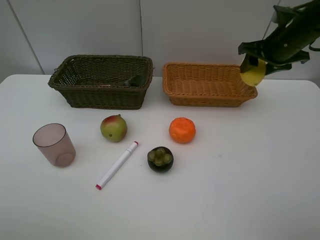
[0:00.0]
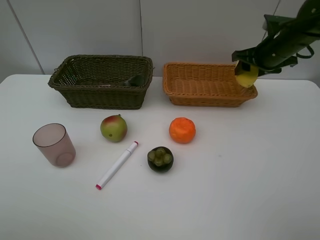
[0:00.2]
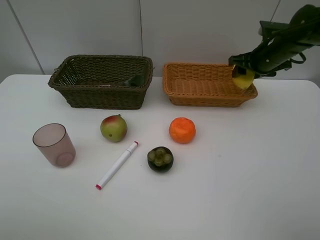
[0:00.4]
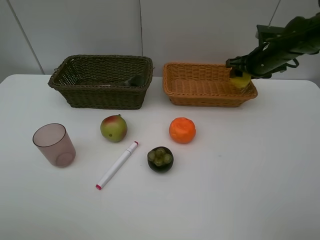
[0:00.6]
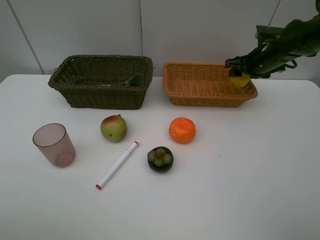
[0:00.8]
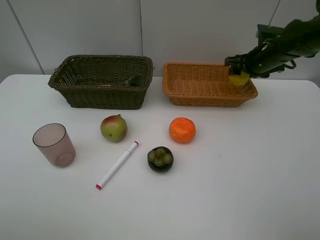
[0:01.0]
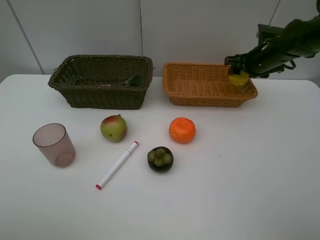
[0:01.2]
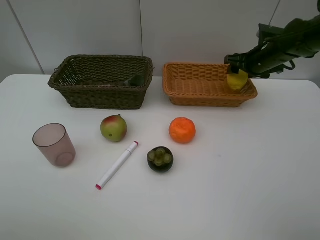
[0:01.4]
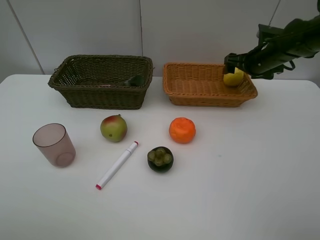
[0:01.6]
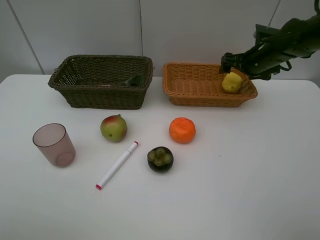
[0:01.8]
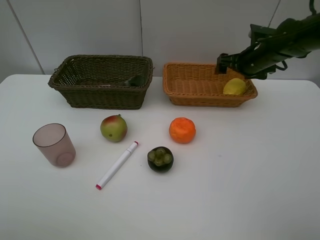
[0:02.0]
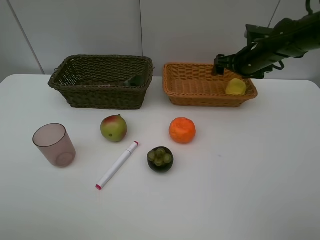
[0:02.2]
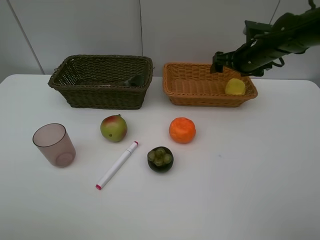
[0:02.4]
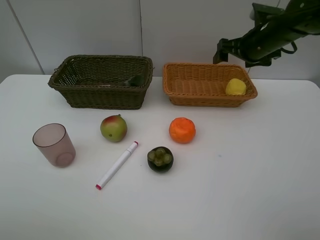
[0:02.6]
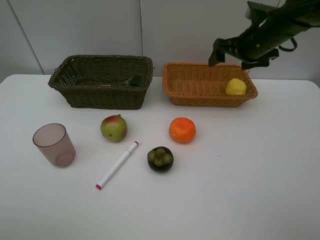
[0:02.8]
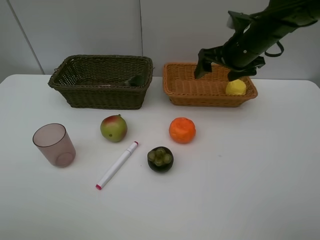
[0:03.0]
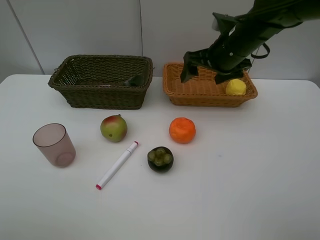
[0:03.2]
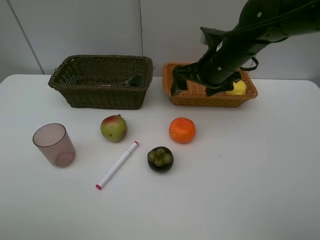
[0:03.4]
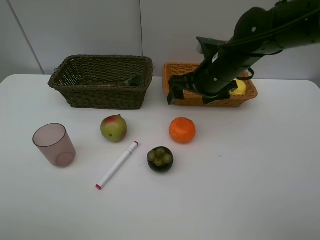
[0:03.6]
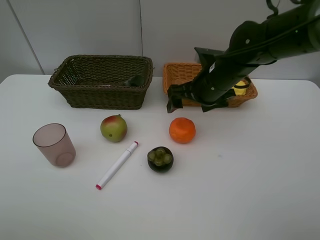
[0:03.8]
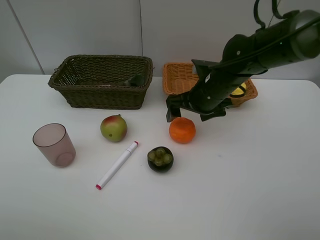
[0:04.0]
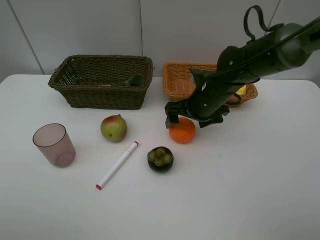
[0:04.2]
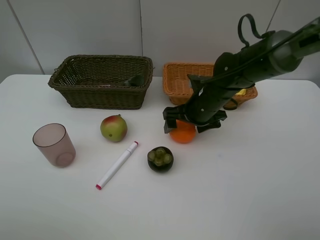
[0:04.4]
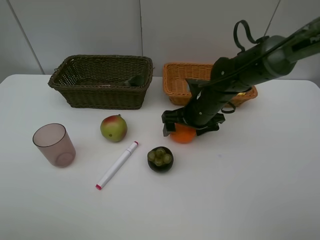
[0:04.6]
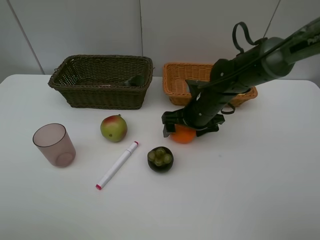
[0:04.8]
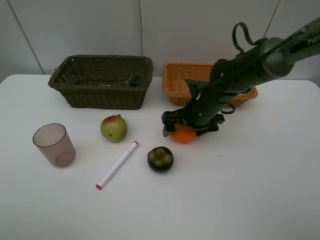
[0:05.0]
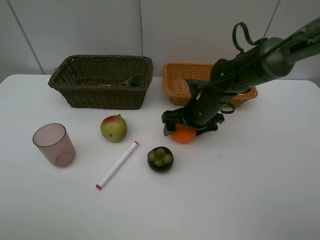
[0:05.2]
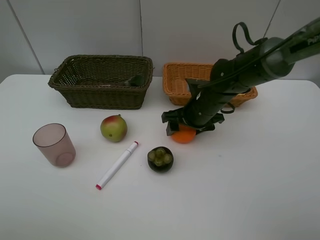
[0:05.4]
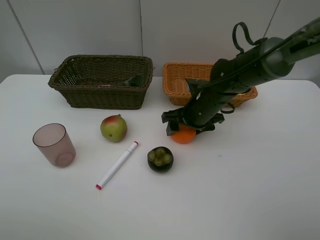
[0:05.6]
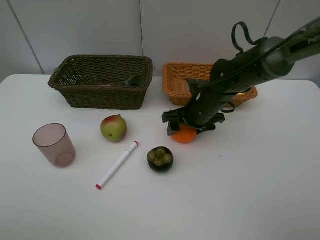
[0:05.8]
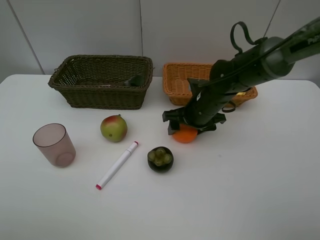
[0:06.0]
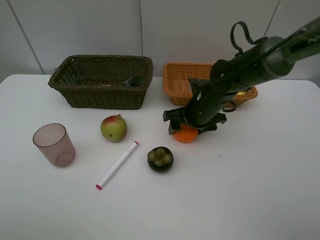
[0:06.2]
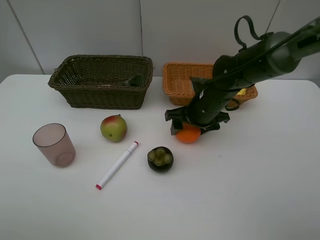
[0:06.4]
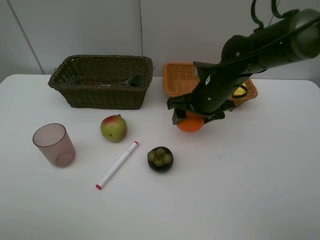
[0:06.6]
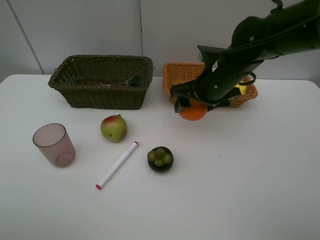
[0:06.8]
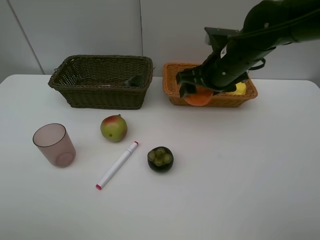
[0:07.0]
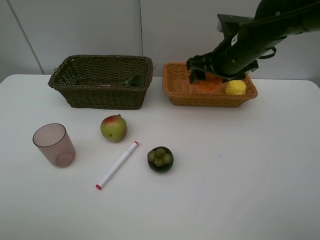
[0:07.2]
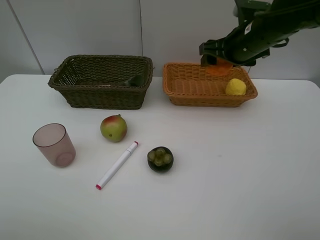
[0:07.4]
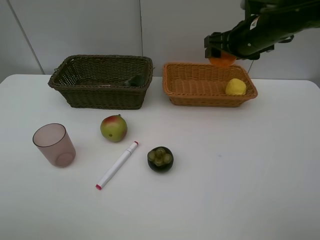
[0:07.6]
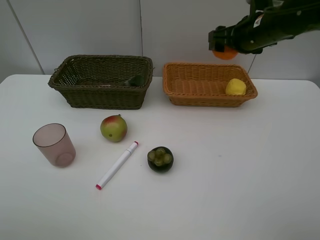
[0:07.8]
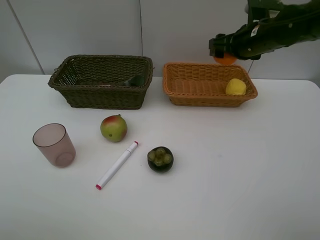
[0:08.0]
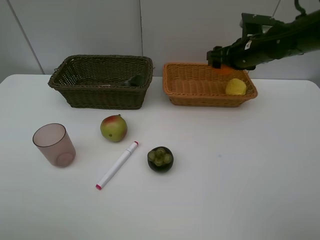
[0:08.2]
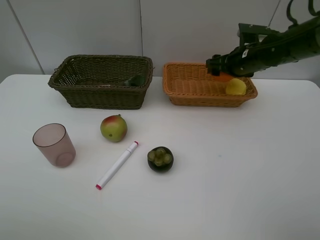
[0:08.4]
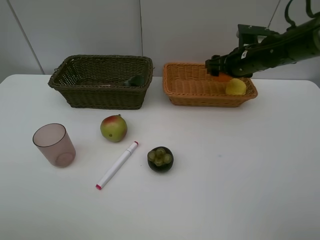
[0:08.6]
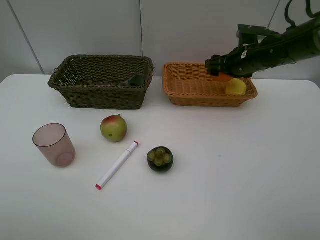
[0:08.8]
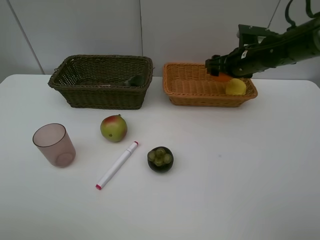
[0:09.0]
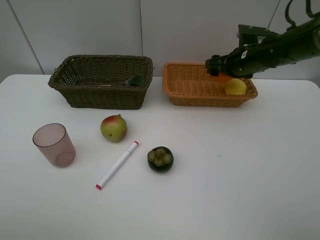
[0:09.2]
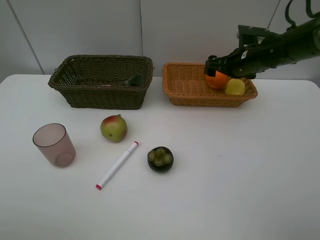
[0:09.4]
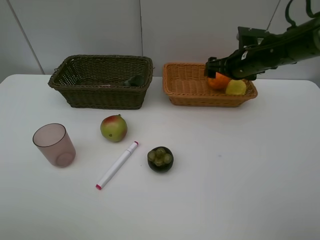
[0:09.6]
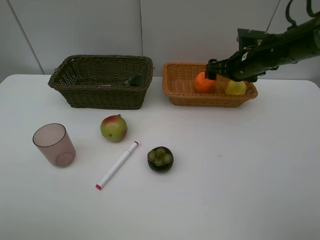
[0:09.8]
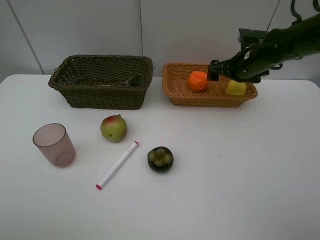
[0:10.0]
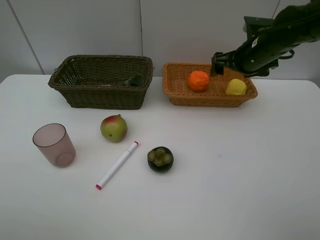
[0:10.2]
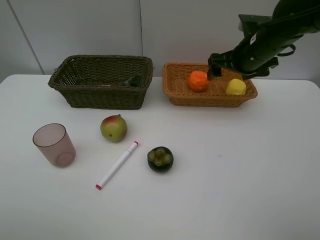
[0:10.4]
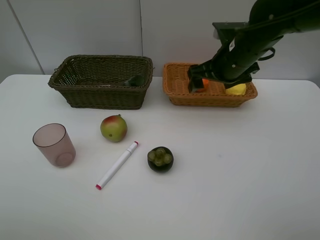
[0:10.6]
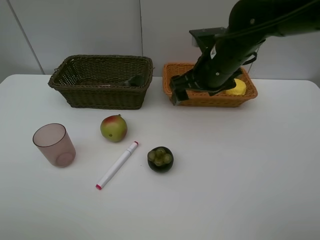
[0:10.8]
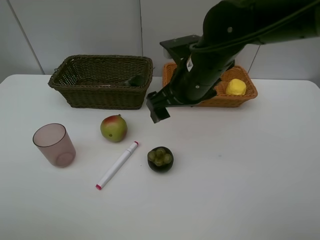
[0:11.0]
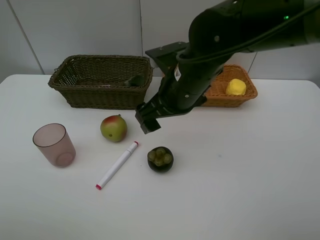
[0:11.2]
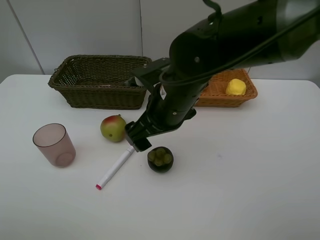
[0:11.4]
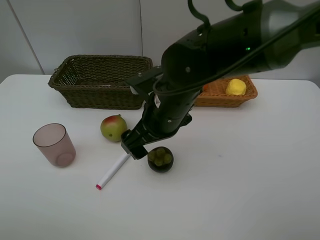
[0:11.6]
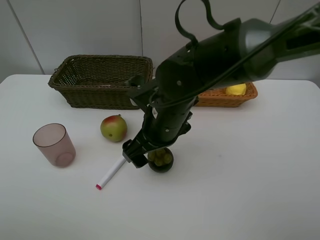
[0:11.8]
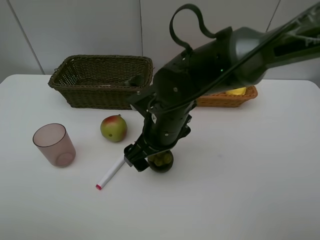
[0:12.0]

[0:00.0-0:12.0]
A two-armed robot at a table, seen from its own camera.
Task of the whole recording: Place multiple objects separately in different baskets.
Step, 0:00.0 to 0:02.0: Place the lemon in the light basket with right gripper.
Step, 0:02.2 to 0:06.6: Pick up the orange with right gripper.
Step, 0:06.8 to 0:10.0: Place the orange in the light basket with right gripper.
0:00.0 to 0:01.6: The right gripper is displaced downward by some 5 cm, and opens.
0:01.6 to 0:03.0: The right gripper travels to the left, backward and upward by approximately 15 cm.
0:03.0 to 0:04.4: The right gripper moves downward and to the left, some 15 cm.
0:04.4 to 0:06.0: The right gripper closes up.
0:06.0 to 0:07.6: The right gripper shifts approximately 15 cm upward and to the right.
0:07.6 to 0:09.0: The right gripper heads downward, covering about 10 cm.
0:09.0 to 0:10.4: The right gripper is displaced backward and upward by about 10 cm, and opens.
0:10.4 to 0:12.0: The right gripper heads to the left, backward and downward, covering about 25 cm.

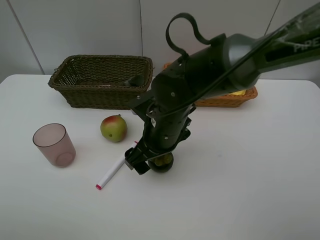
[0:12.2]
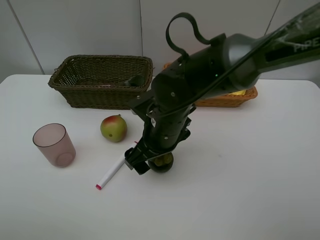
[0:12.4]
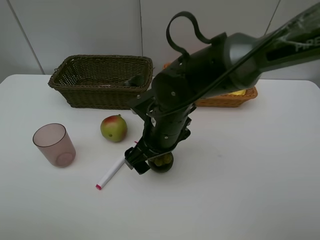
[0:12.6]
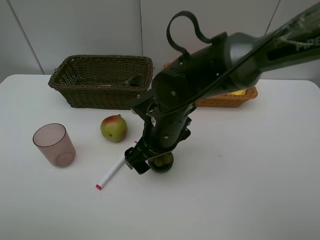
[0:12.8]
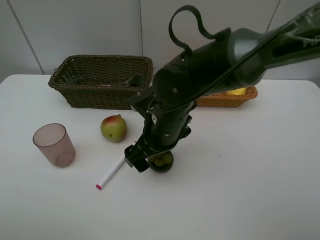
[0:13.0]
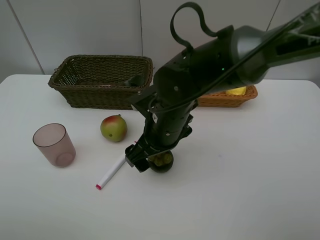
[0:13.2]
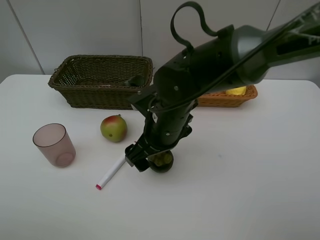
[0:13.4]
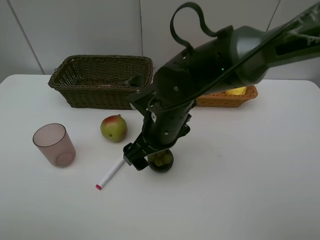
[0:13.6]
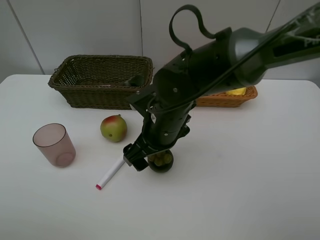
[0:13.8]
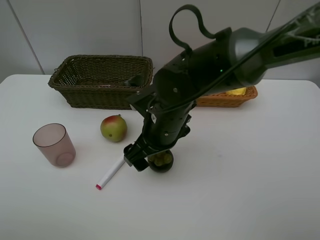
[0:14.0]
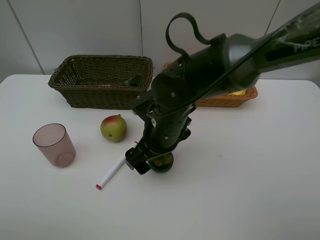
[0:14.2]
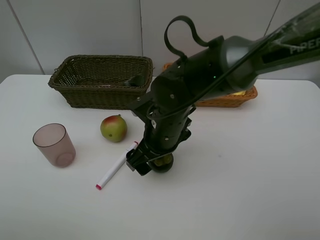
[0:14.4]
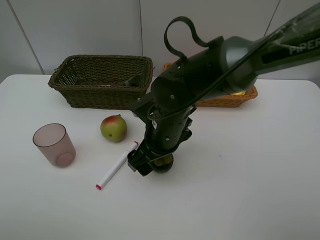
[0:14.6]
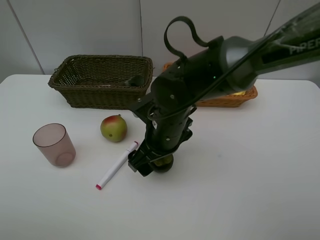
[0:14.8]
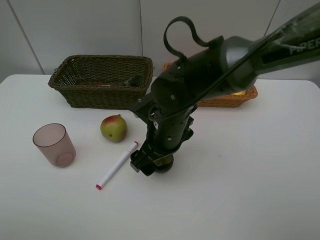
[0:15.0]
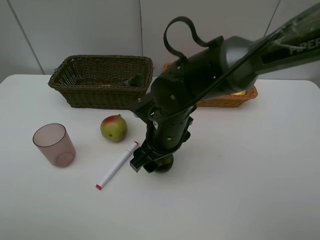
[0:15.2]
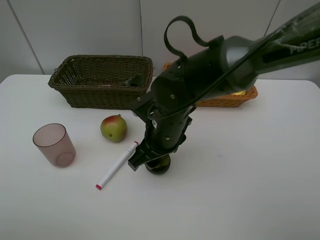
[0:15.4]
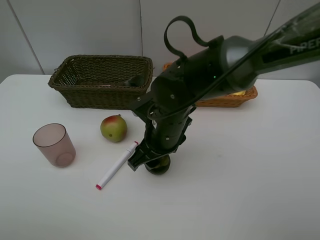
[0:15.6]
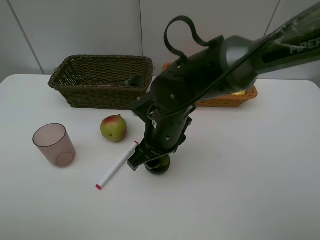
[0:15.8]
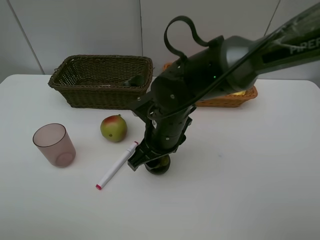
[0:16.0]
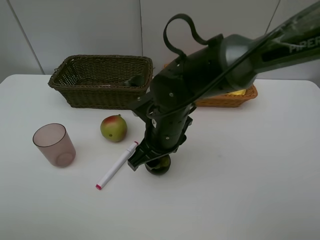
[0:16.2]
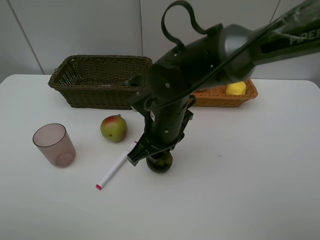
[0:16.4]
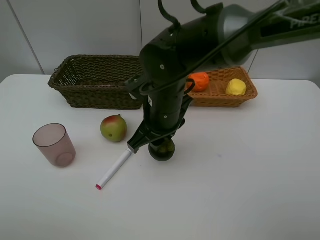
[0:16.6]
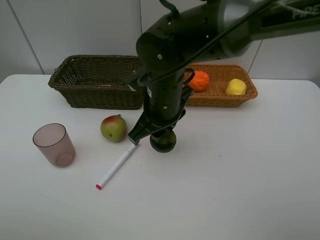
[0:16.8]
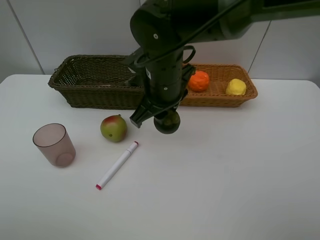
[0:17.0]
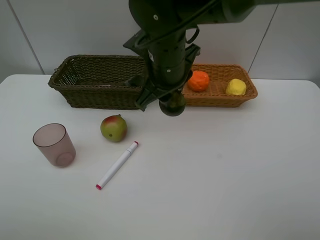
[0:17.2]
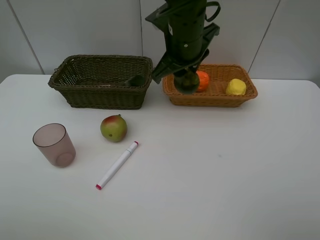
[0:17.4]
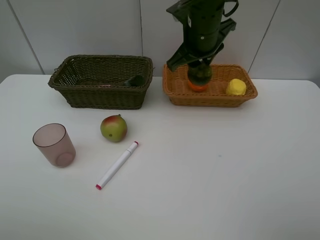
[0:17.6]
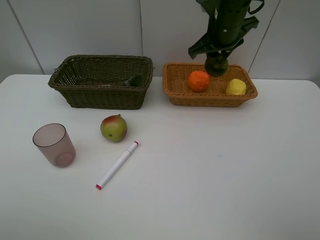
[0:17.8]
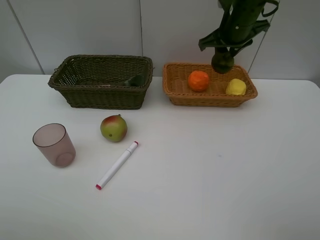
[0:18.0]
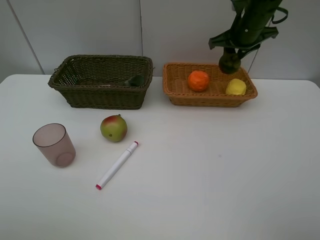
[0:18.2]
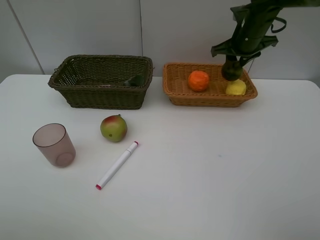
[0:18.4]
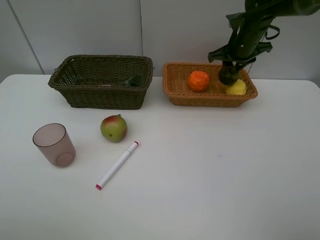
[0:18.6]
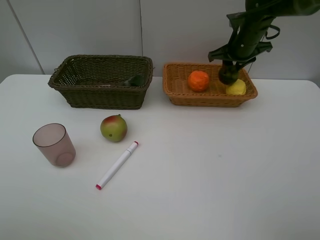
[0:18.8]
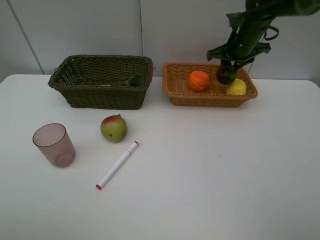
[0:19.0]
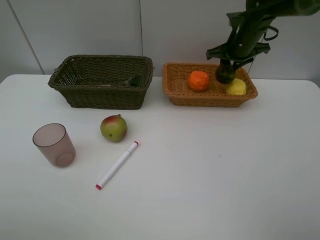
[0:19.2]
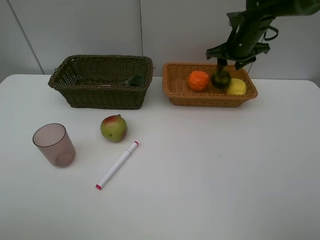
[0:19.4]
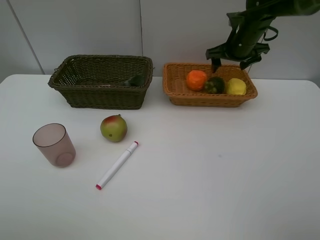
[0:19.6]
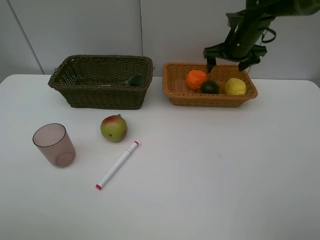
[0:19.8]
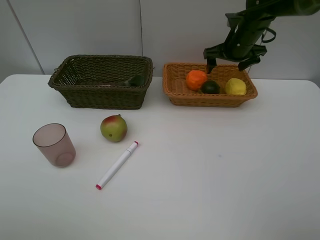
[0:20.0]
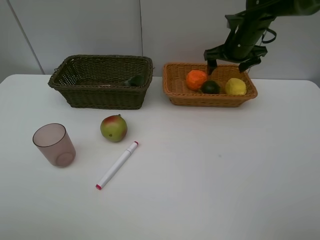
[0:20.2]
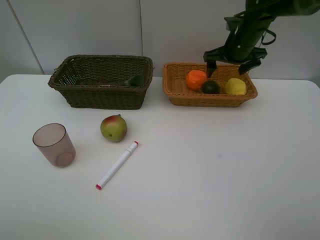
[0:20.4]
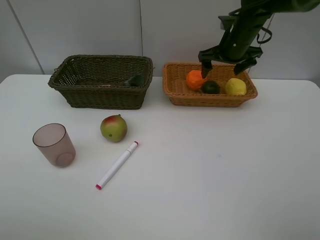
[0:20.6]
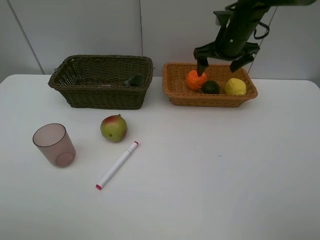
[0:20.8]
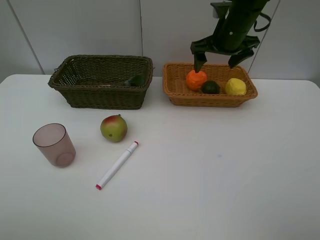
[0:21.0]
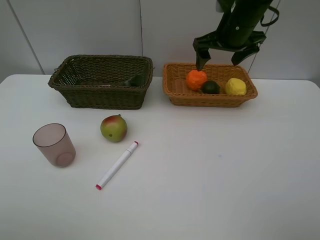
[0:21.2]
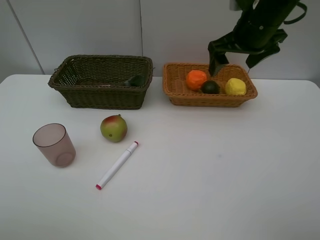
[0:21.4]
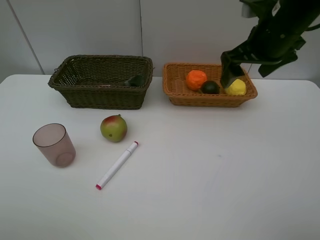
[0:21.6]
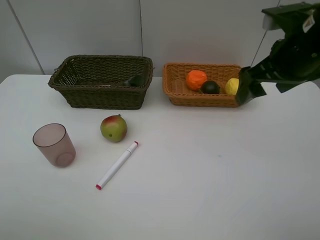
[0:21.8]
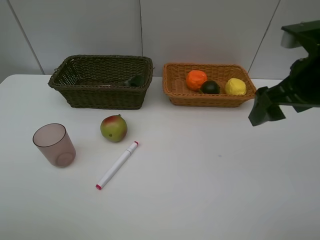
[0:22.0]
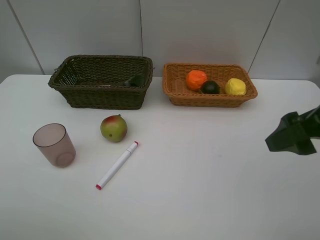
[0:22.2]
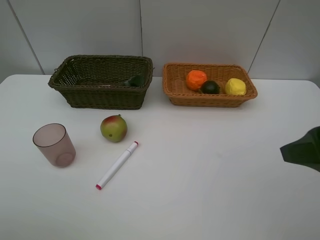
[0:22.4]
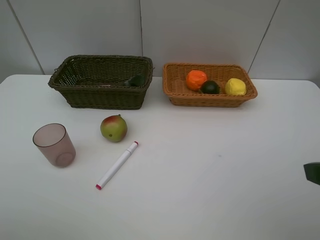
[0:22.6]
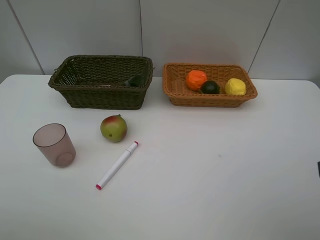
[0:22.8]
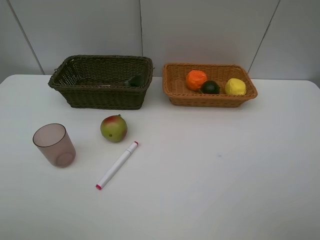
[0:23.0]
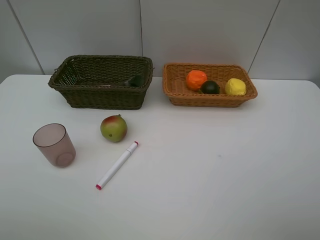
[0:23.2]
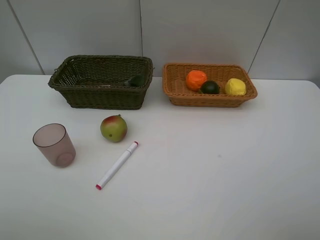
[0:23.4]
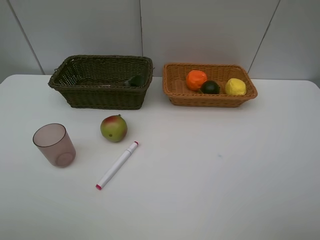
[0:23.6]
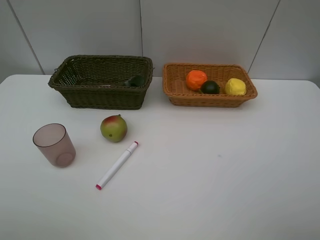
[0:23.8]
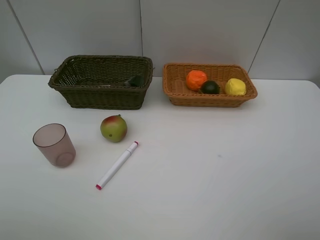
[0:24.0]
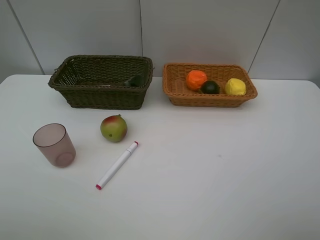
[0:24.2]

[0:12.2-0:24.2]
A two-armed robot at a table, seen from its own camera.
Task of the whole recording: Place multiple objects separately in different baskets.
Step, 0:12.2 to 0:16.6: Pick up the mangosteen with right gripper.
Step, 0:16.8 to 0:19.8: Place the mangosteen in the light basket with right gripper.
0:12.2 to 0:13.8: Both grippers stay put.
0:13.8 to 0:15.2: The right gripper closes.
0:15.2 to 0:16.6: The right gripper closes its fingers.
0:16.6 to 0:18.2: The right gripper travels to the right, forward and upward by some 30 cm.
0:18.2 to 0:19.8: The right gripper opens up.
0:19.8 to 0:21.2: The right gripper goes some 10 cm backward and upward.
0:21.2 to 0:22.6: The right gripper moves backward, about 35 cm.
